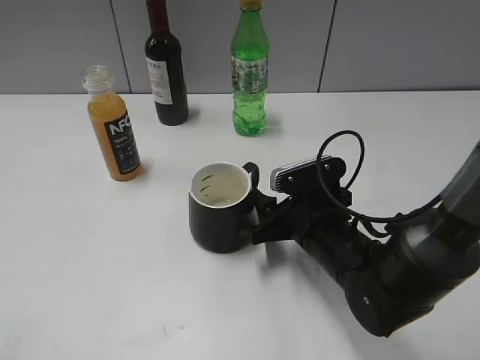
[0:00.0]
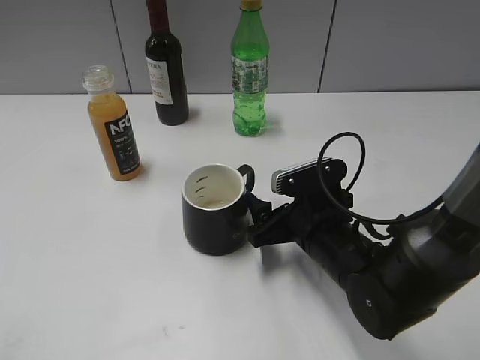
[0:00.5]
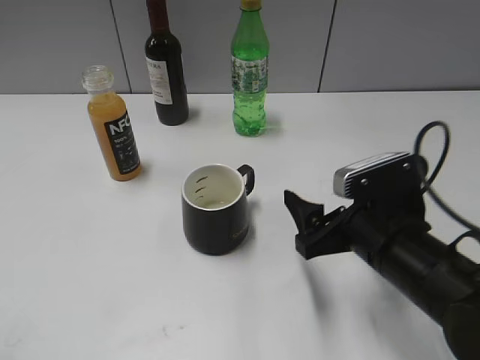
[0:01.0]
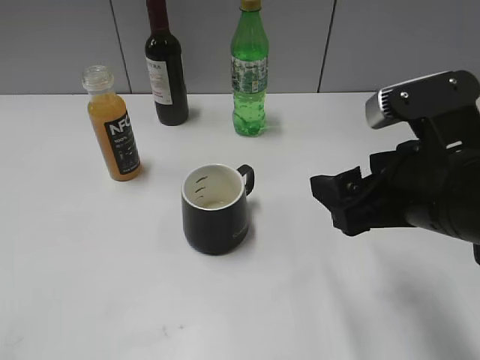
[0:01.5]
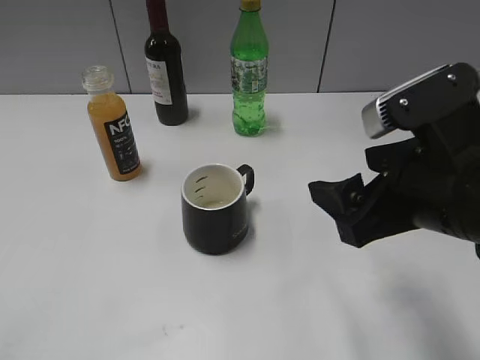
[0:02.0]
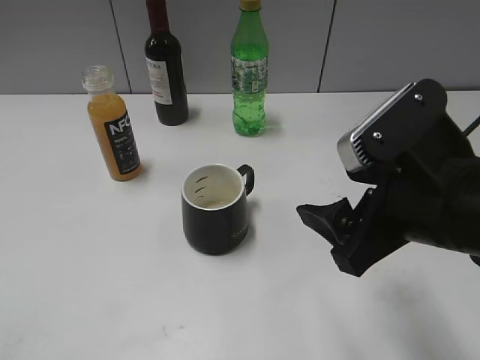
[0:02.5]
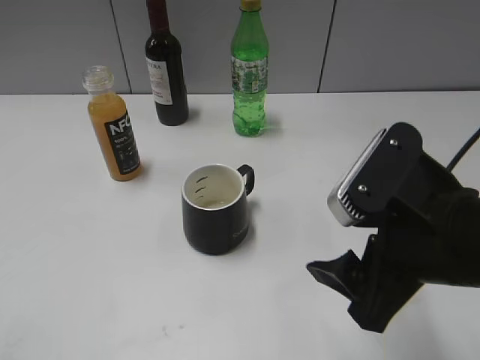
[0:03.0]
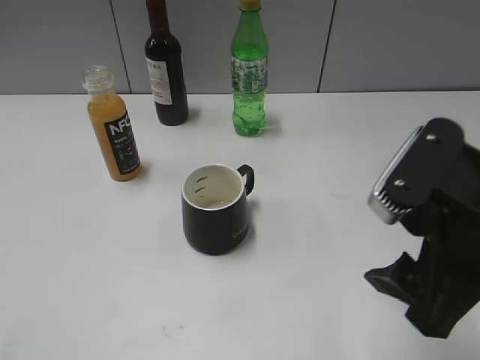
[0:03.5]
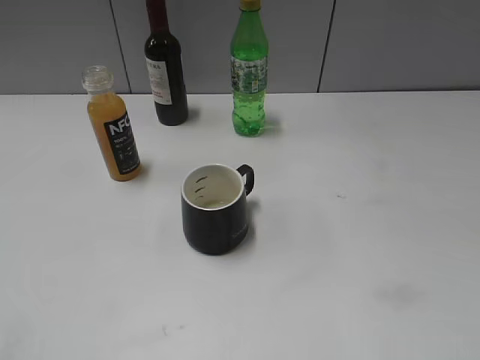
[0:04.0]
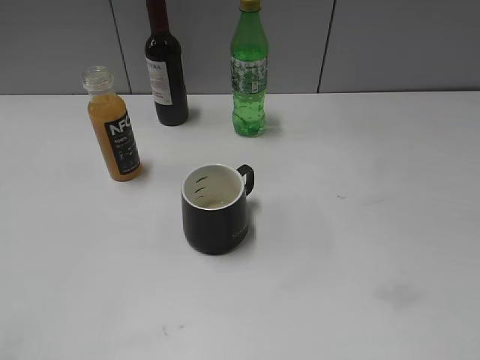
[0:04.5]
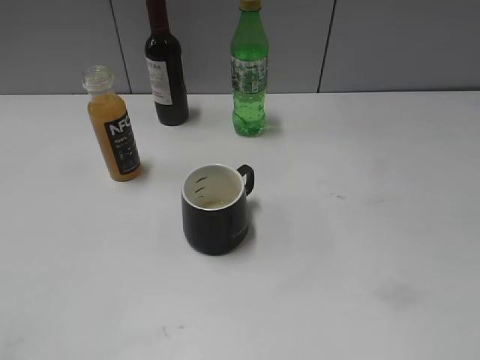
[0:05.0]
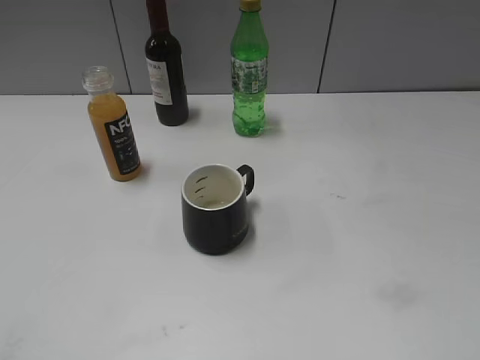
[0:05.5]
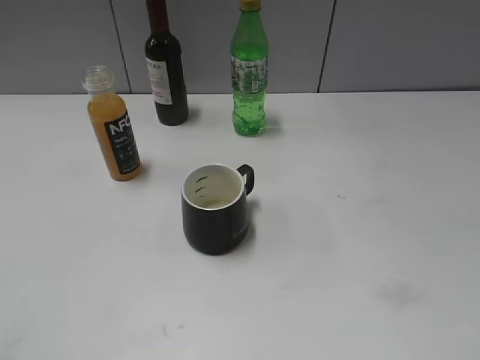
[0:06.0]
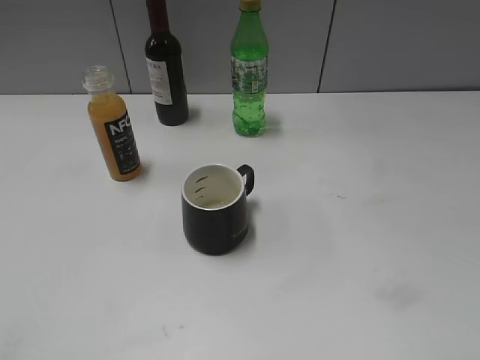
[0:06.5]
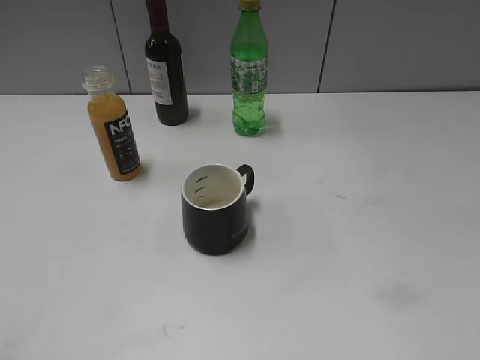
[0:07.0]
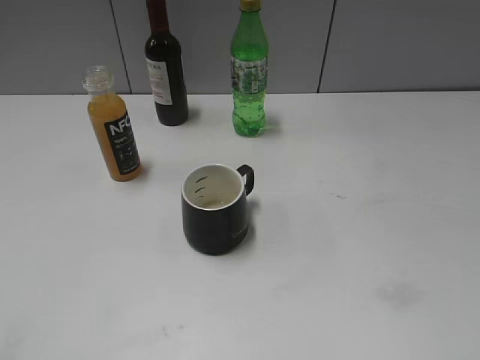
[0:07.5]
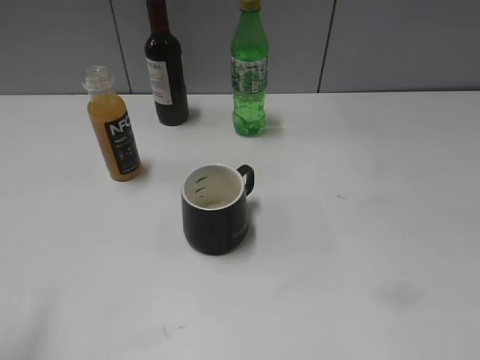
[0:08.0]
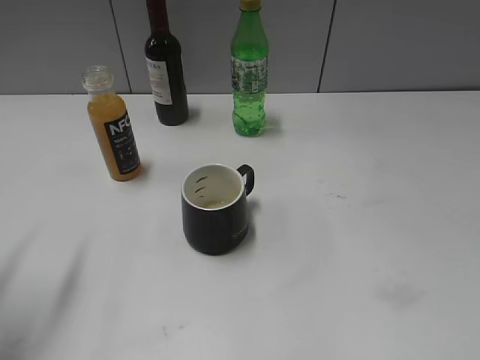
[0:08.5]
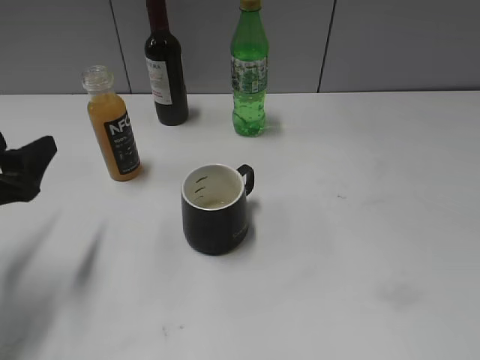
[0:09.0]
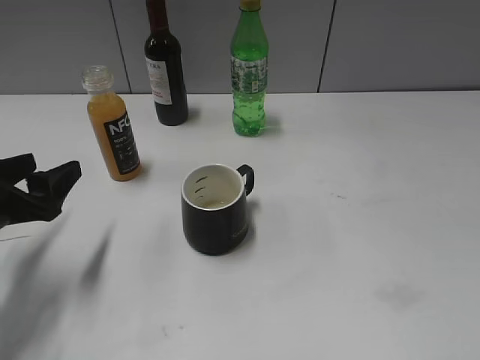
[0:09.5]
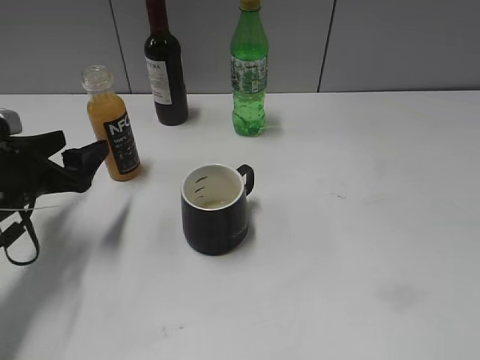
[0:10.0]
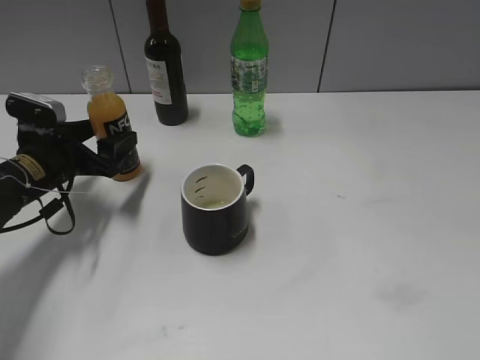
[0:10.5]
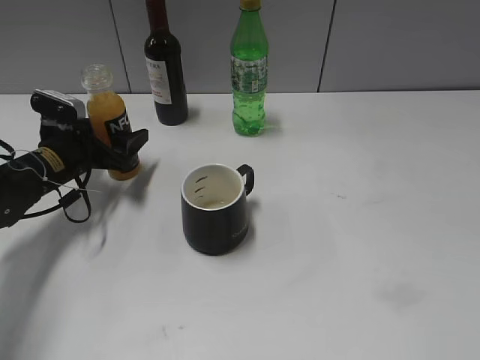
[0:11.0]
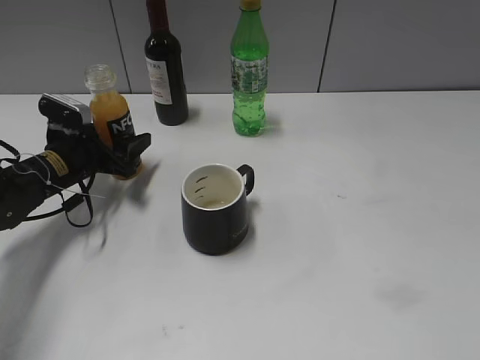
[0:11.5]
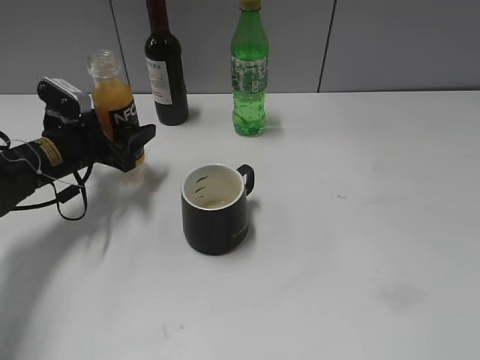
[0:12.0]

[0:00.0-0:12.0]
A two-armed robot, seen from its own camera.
Step, 0:00.0 to 0:11.5: Grasp the bottle with orange juice with left gripper.
0:00.0 to 0:02.0: The right gripper heads upward and backward, covering some 20 cm, and opens its fingers.
0:02.0 to 0:04.0: The right gripper moves to the right, backward and upward, some 15 cm.
0:08.0 to 0:10.0: The left gripper is displaced forward and downward by about 25 cm.
0:10.0 to 0:12.0: The left gripper moves forward, approximately 10 cm, and closes up.

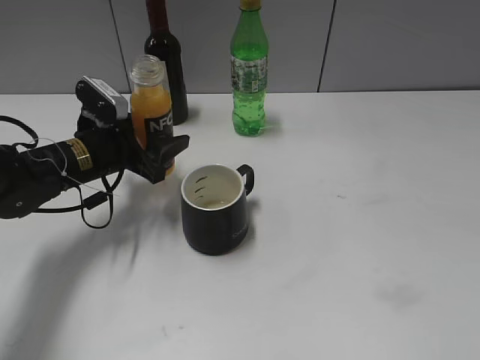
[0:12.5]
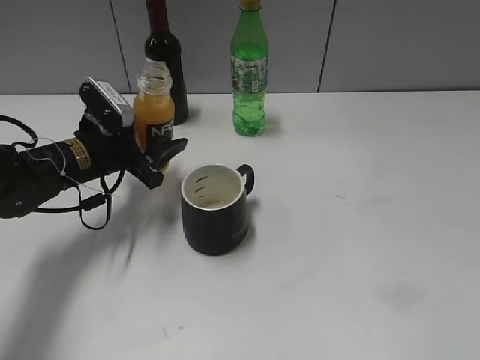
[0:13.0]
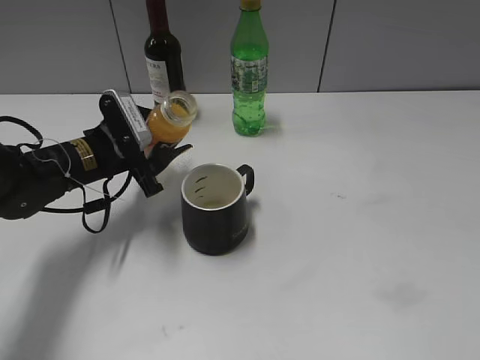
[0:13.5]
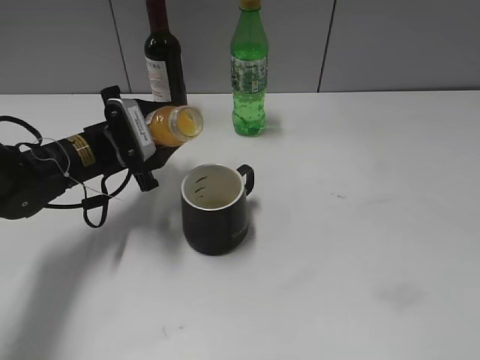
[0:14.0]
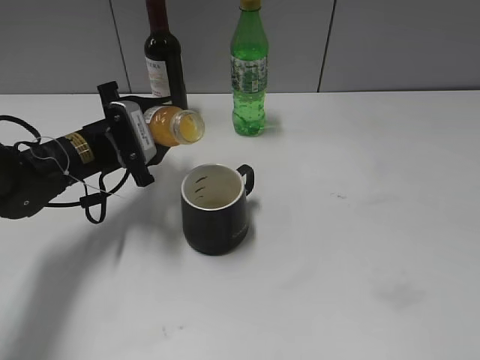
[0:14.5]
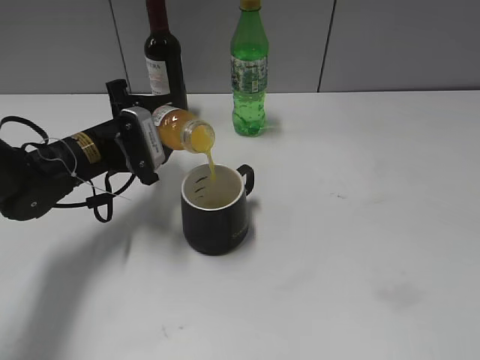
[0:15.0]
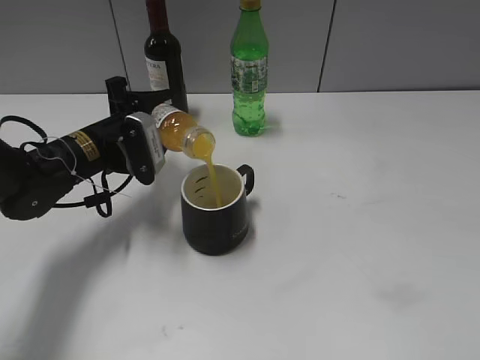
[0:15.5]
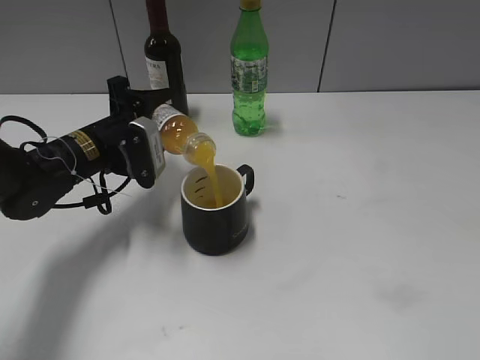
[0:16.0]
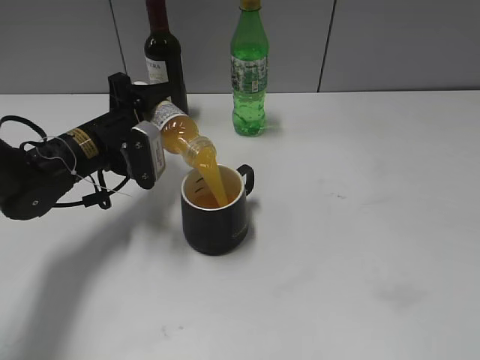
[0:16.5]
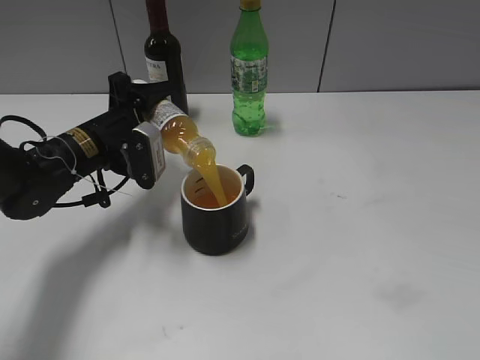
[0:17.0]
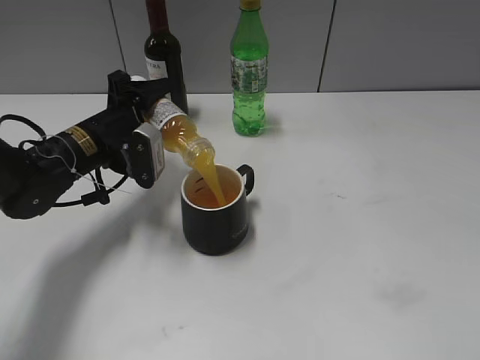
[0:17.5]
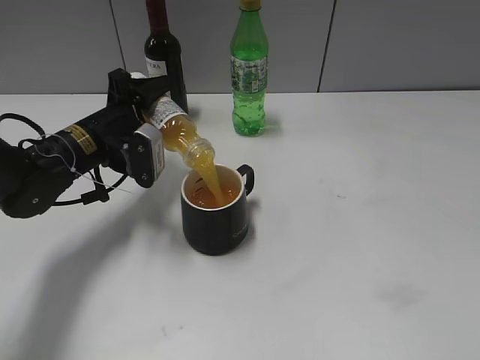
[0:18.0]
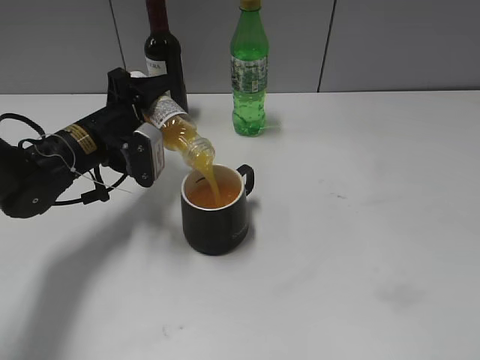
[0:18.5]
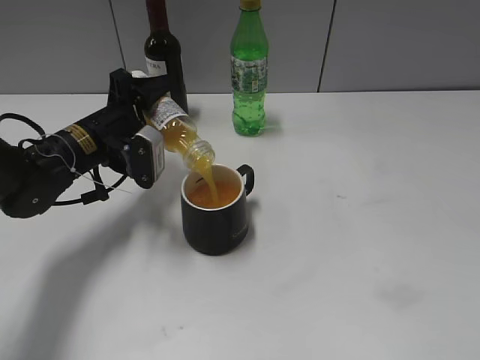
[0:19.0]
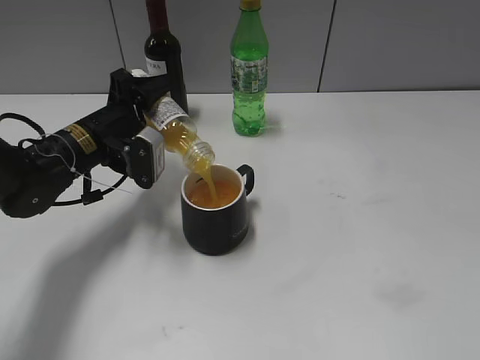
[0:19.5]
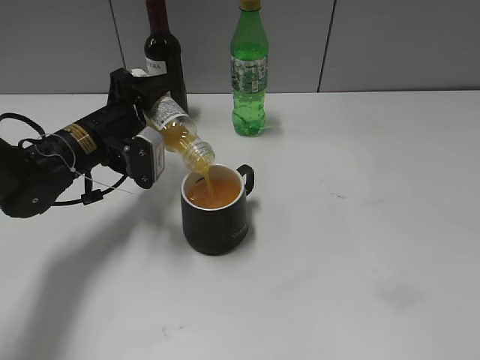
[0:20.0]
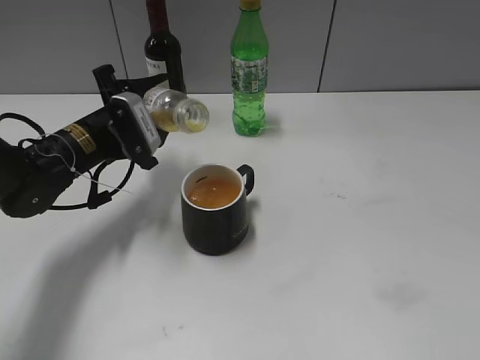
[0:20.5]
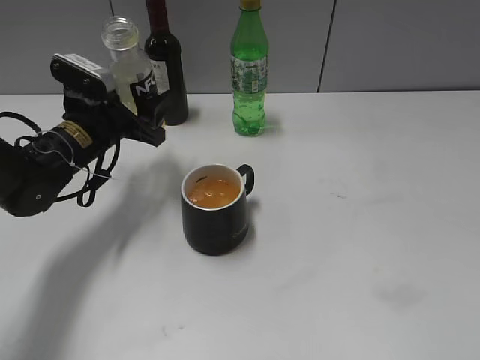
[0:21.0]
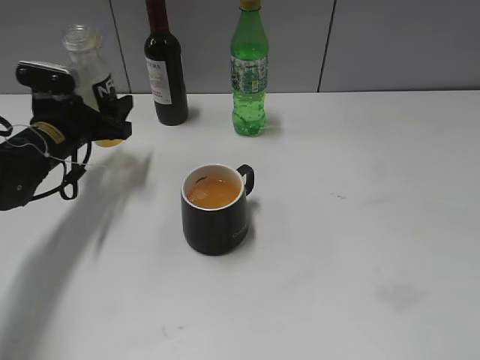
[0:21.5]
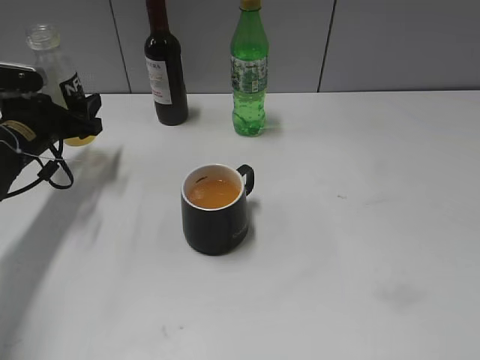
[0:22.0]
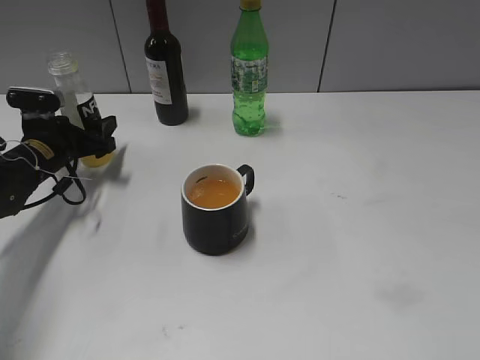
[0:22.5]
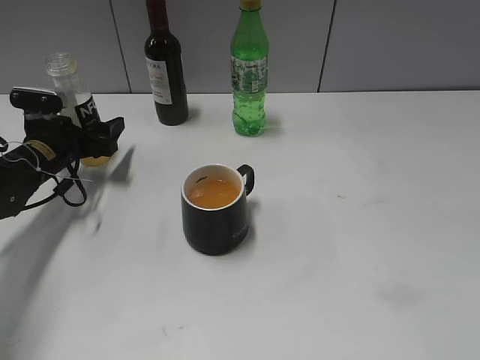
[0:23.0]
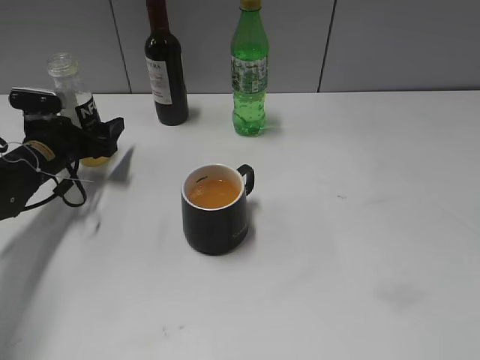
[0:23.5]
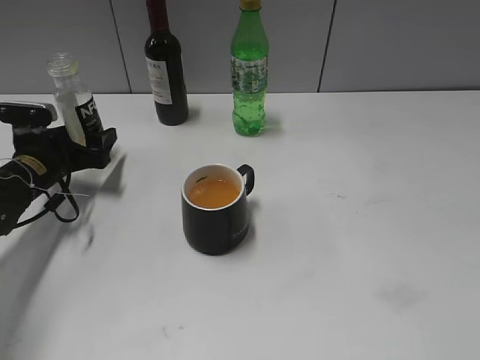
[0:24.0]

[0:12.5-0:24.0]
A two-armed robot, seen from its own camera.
Step, 0:12.5 to 0:20.0: Pour the orange juice from bottle to cup with left gripper.
Step, 0:20.5 to 0:23.0: Place the orange juice bottle on the table with left gripper.
0:16.5 to 0:18.5: The grippers stay close to where they were, moving slightly.
0:18.5 to 0:20.0: Both grippers stay put.
0:20.0 to 0:22.0: The left gripper shifts roughly 10 cm to the left.
0:22.0 to 0:24.0: The left gripper opens up.

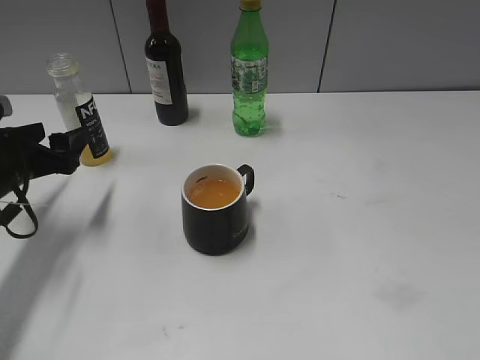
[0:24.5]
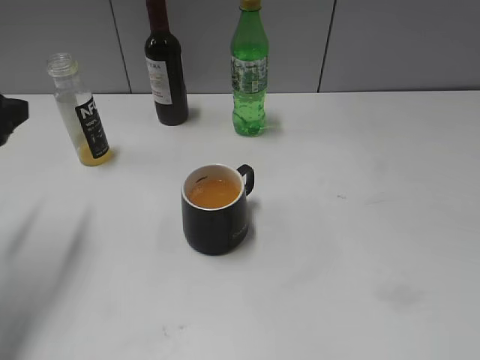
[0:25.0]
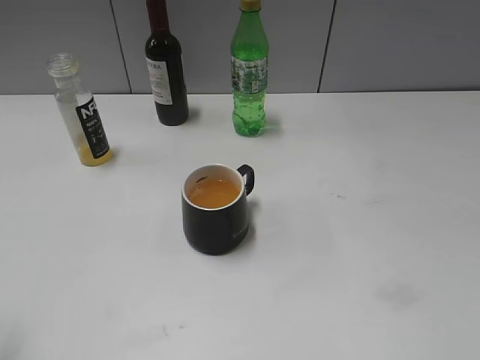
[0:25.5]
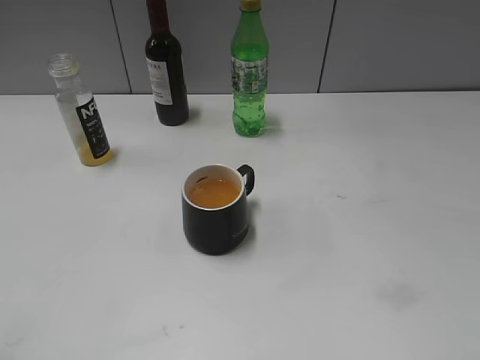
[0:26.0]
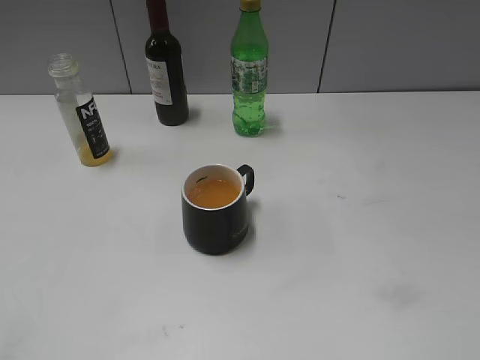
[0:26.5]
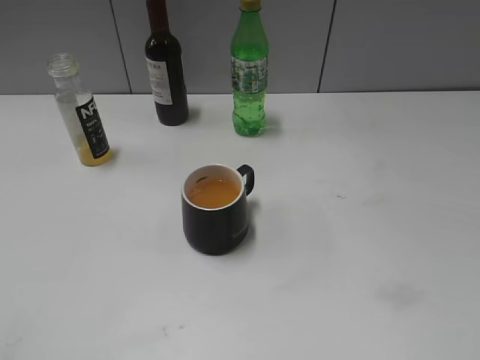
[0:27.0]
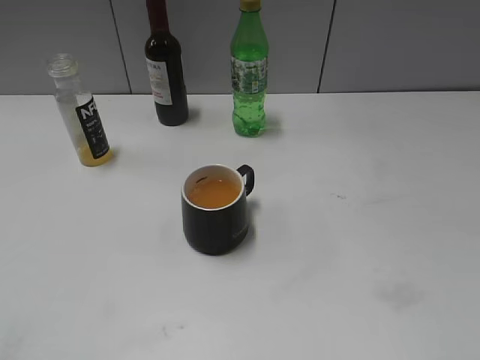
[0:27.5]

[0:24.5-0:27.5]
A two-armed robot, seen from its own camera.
0:24.5 to 0:26.0: The left gripper travels backward and upward by roughly 35 cm.
